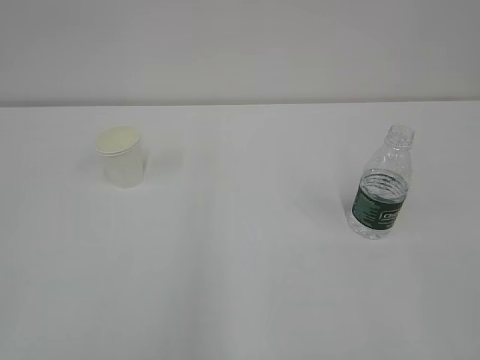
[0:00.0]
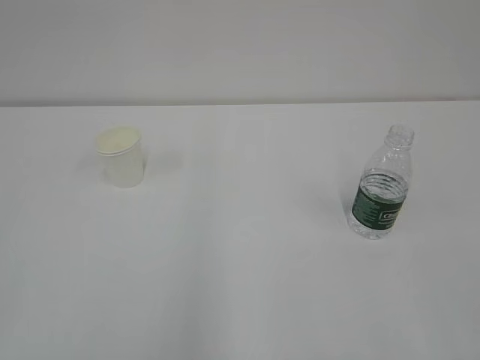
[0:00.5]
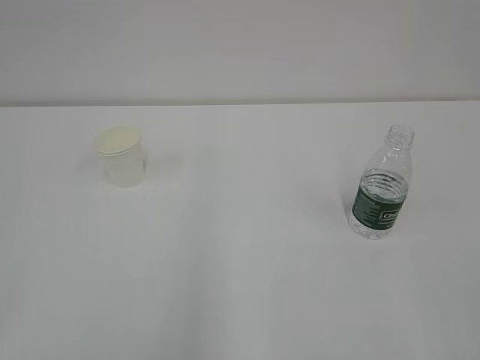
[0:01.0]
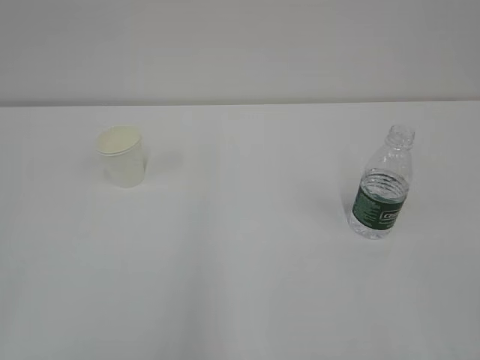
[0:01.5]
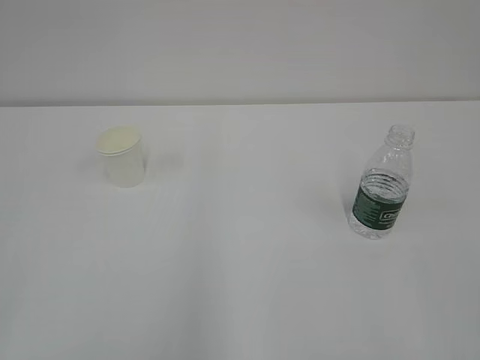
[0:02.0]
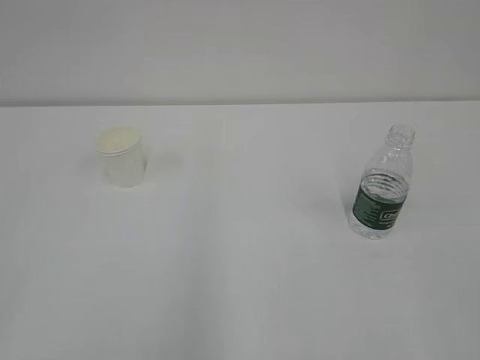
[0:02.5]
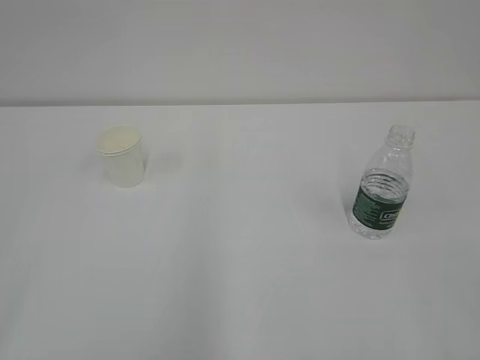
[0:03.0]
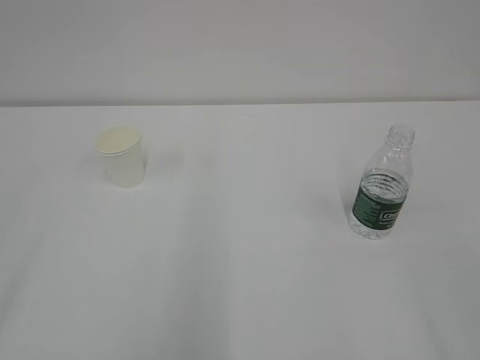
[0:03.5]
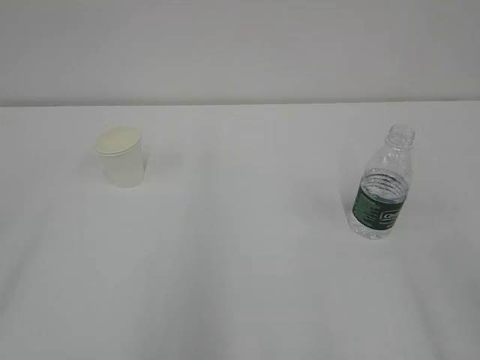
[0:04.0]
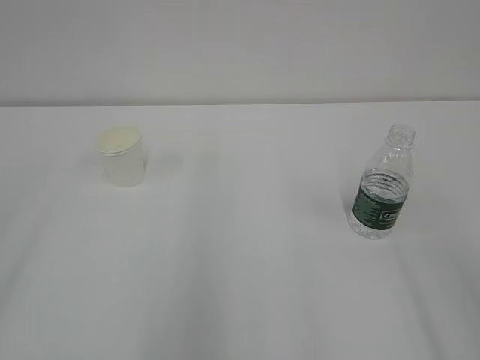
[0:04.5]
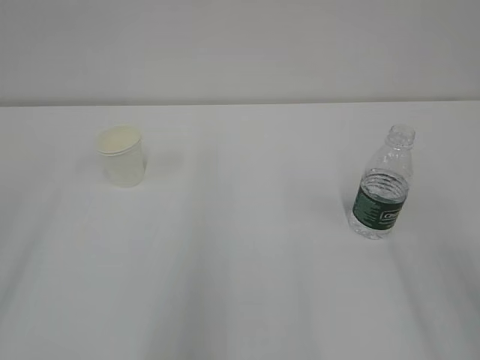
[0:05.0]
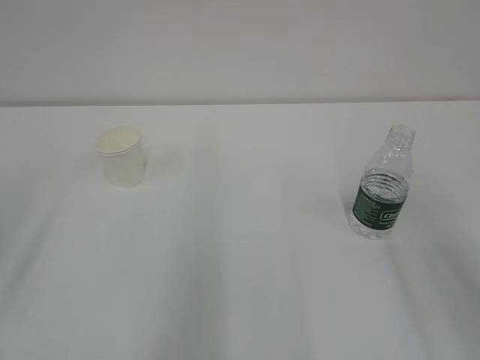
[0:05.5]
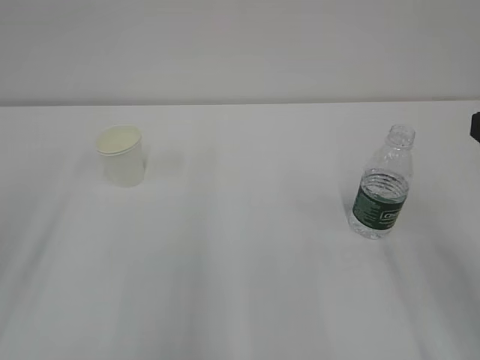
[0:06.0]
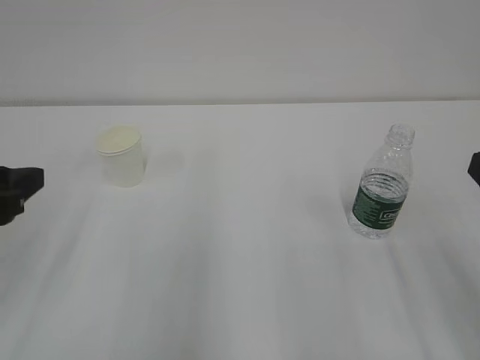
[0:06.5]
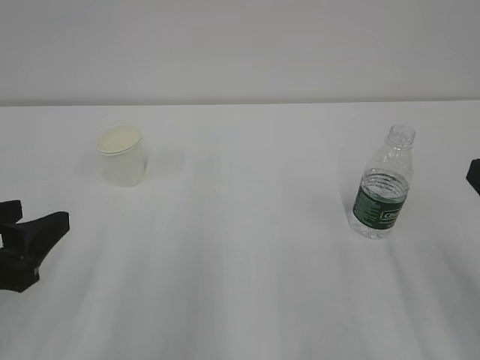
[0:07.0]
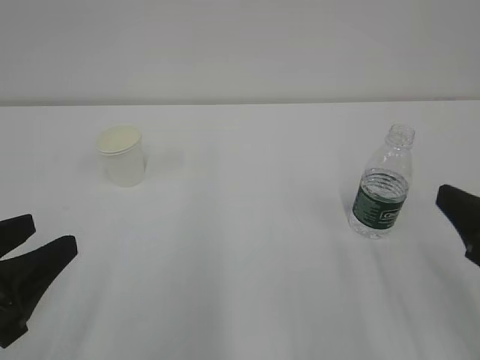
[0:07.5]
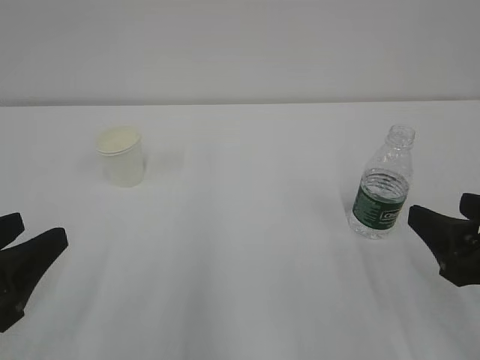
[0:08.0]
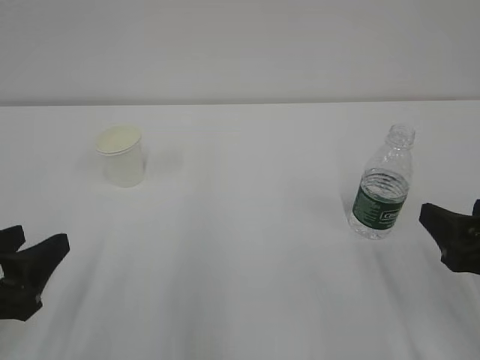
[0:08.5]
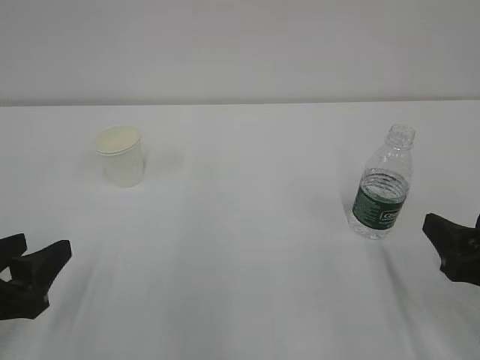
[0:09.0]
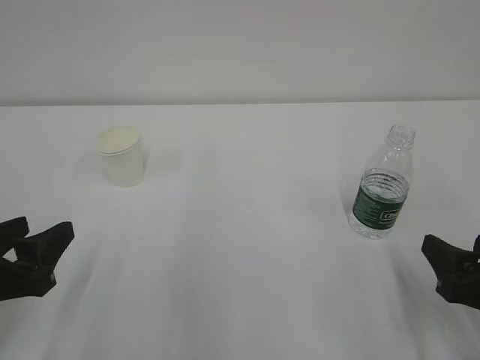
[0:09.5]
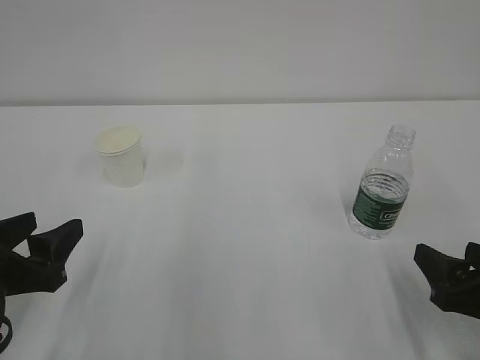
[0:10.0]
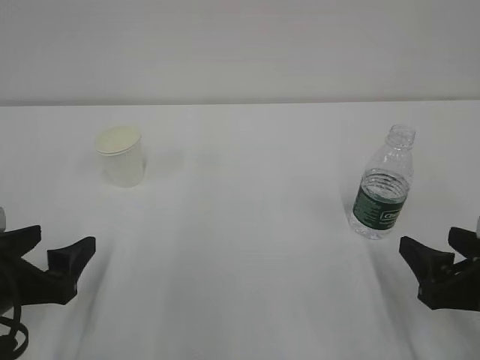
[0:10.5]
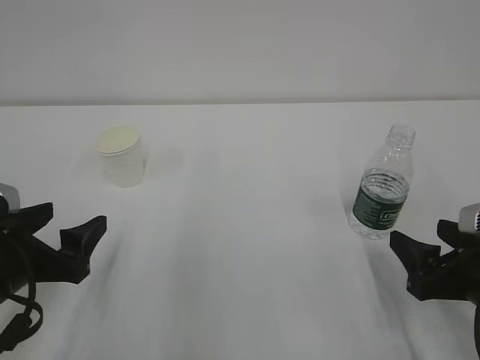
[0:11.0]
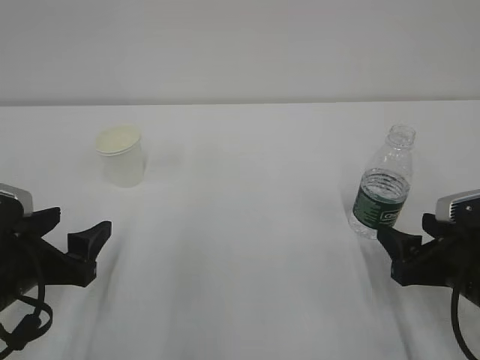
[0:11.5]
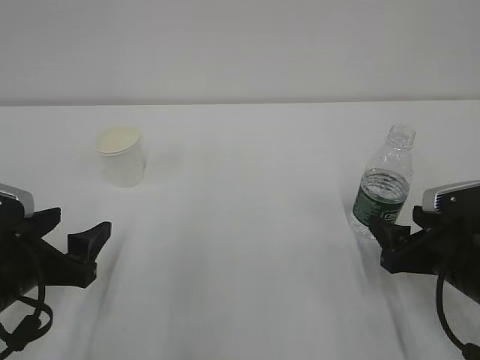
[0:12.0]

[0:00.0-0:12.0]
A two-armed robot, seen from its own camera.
0:06.0 to 0:08.0: The left gripper heads downward and backward, covering some 10 cm. The right gripper heads downward, covering roughly 10 cm.
0:08.0 to 0:10.0: The right gripper goes some 5 cm downward, while the left gripper ends up approximately 5 cm from where it was.
0:10.0 to 0:12.0: The left gripper opens. Meanwhile the right gripper travels forward by approximately 5 cm.

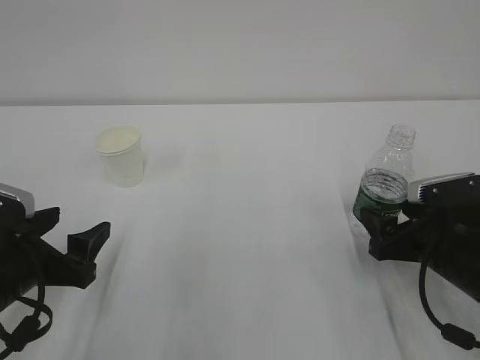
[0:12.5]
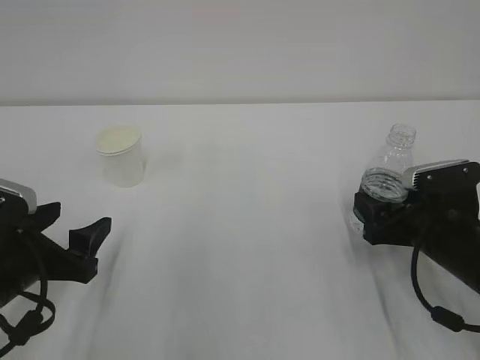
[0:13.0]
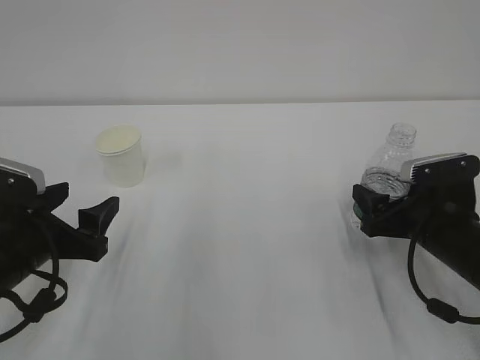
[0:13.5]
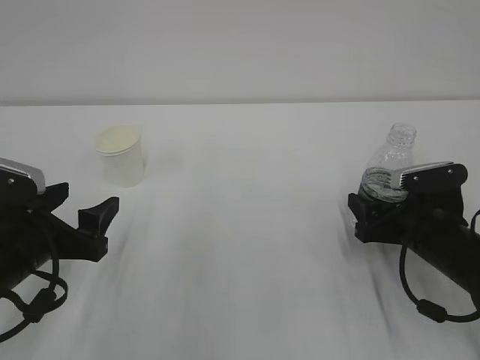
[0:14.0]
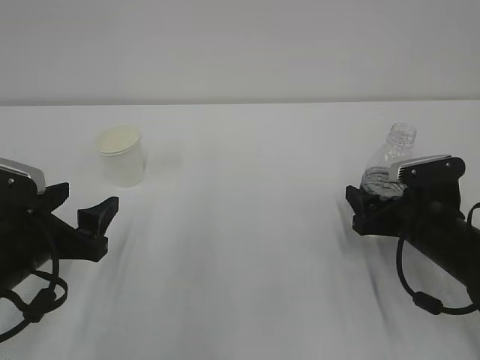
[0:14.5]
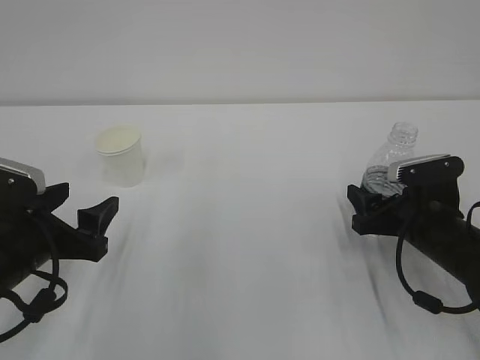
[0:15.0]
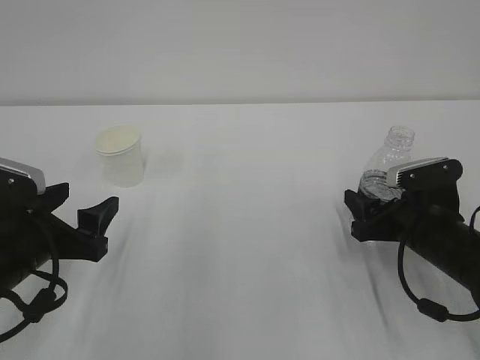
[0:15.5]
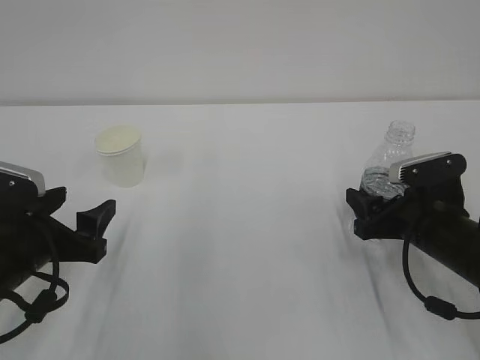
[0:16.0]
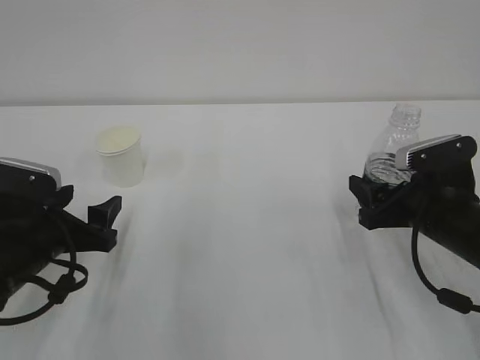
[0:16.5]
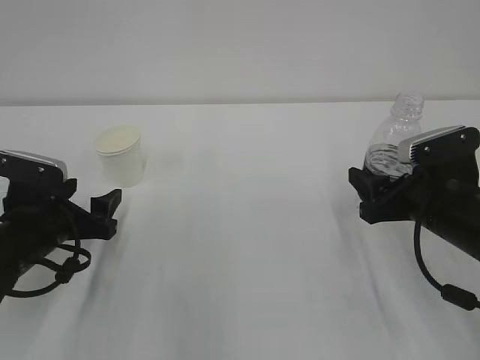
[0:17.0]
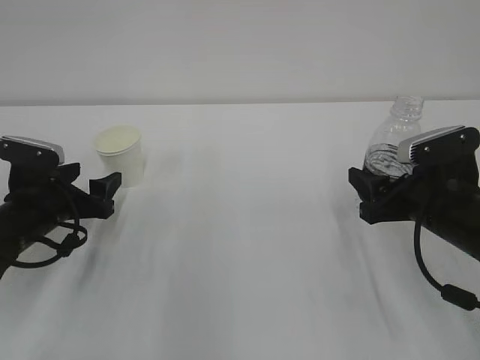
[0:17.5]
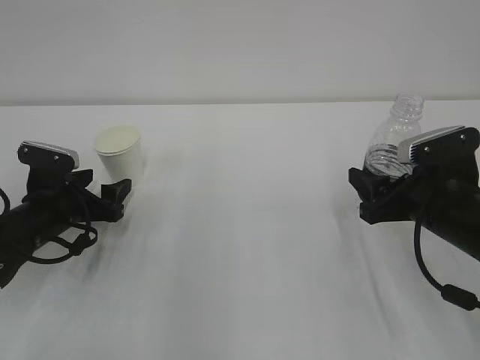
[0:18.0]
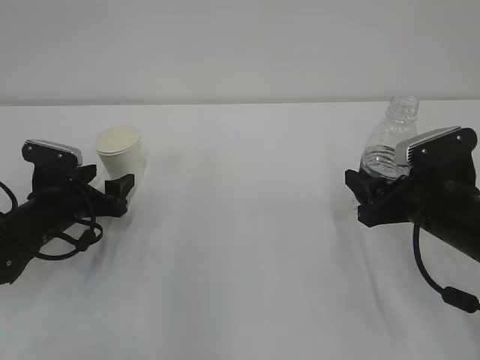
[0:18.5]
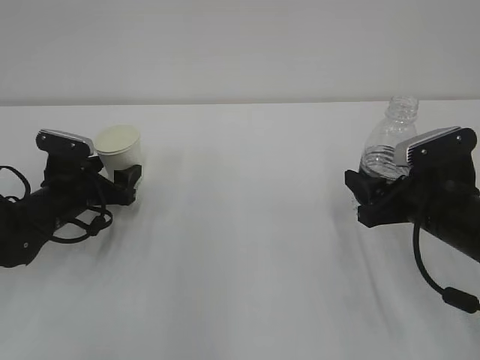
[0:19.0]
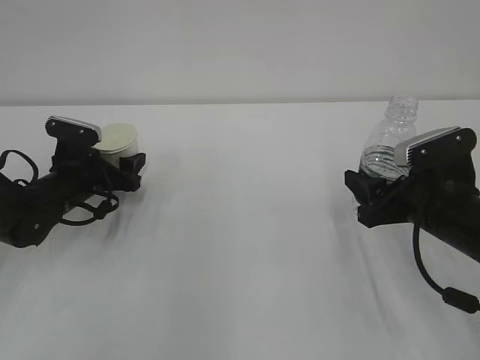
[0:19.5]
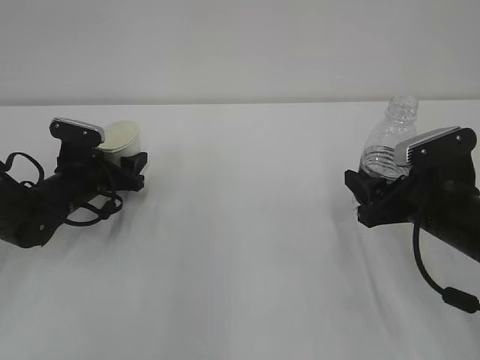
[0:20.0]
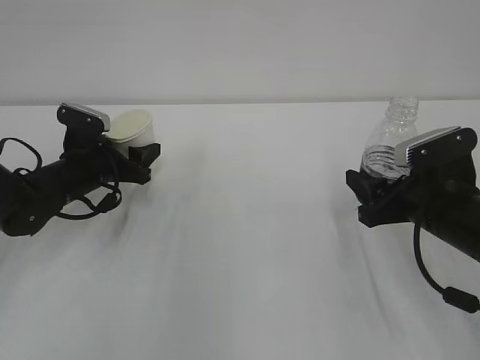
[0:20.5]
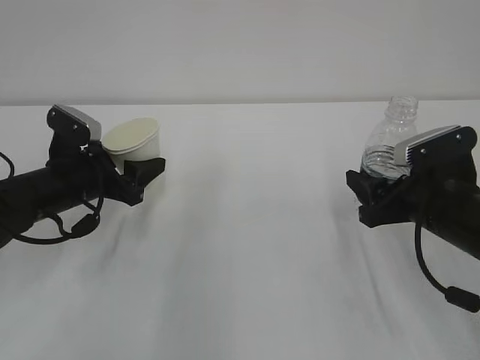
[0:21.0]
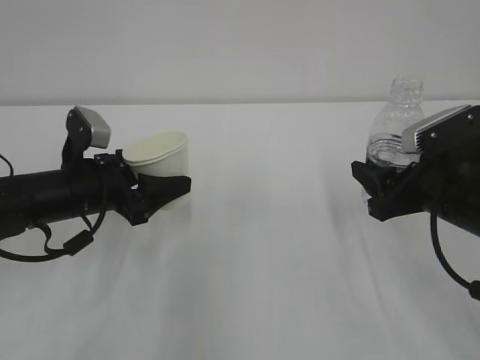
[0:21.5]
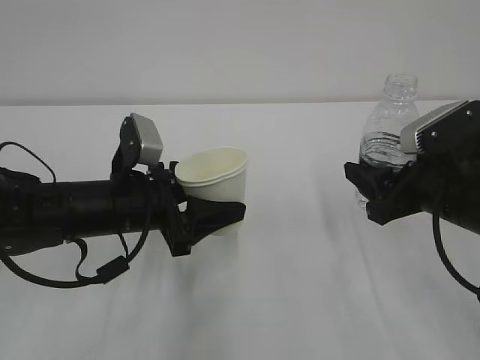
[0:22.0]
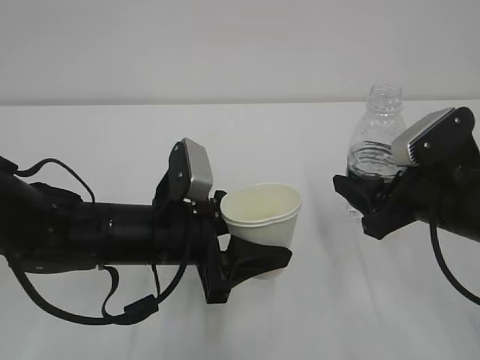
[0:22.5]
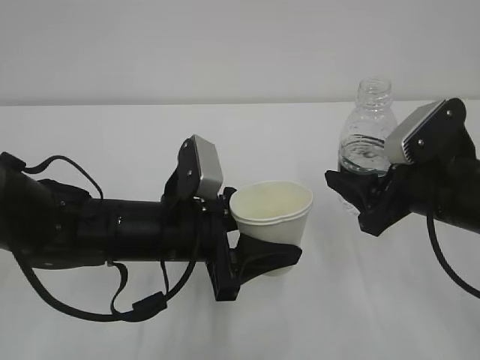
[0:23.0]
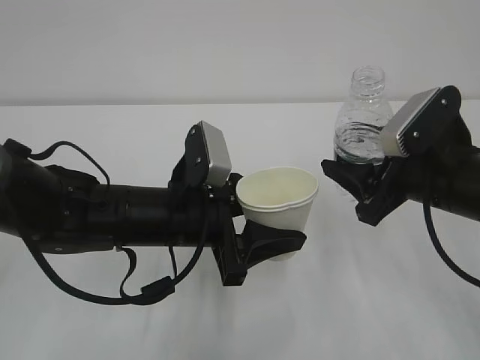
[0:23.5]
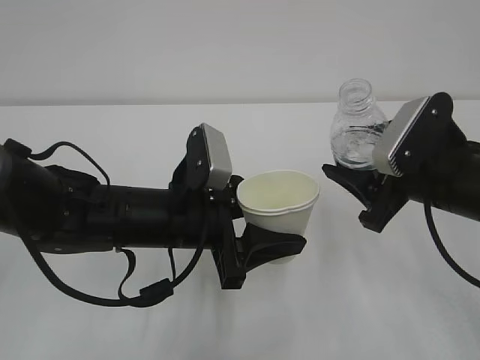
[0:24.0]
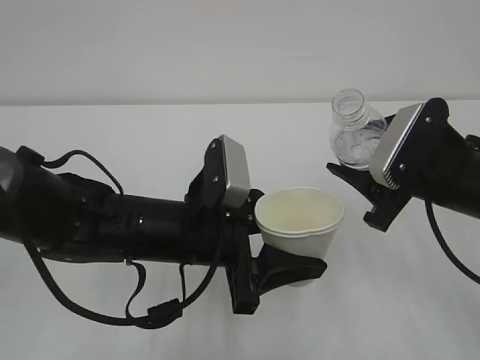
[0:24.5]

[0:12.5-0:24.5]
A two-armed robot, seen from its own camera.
0:12.5 to 0:14.5: The grippers make only small movements.
0:14.5 to 0:16.5: The right gripper closes up.
0:16.5 to 0:18.5: The left gripper moves forward and downward, roughly 10 cm.
0:18.5 to 0:20.5: The left gripper travels forward by roughly 5 cm, and closes.
0:20.5 to 0:22.5: The left gripper shifts roughly 20 cm backward and to the right.

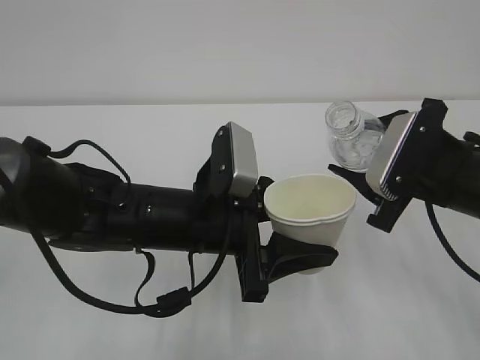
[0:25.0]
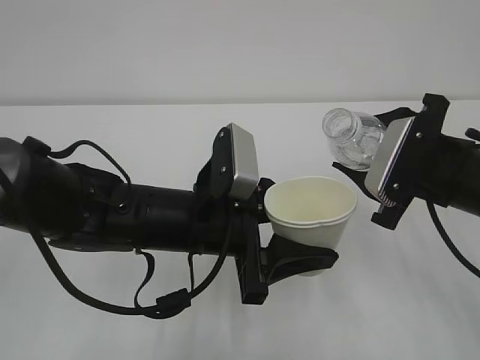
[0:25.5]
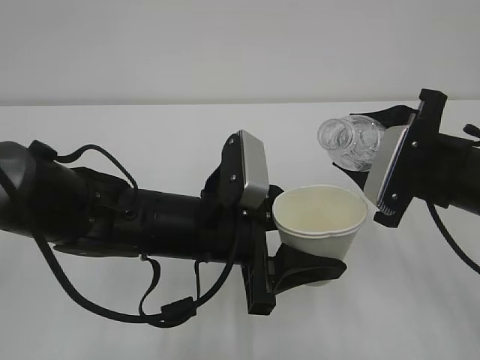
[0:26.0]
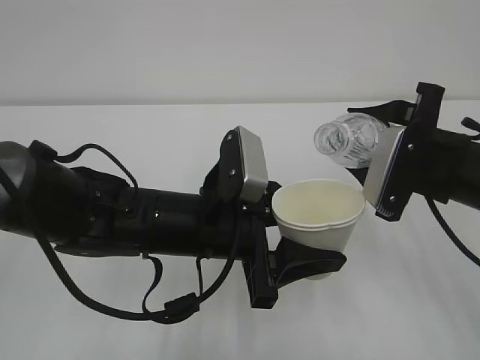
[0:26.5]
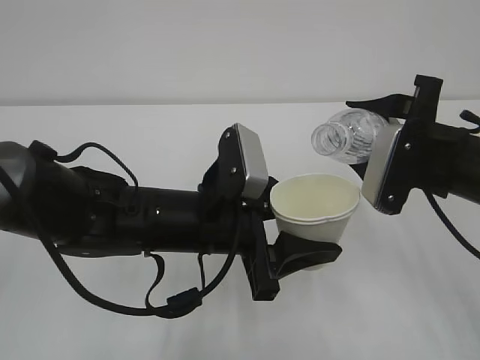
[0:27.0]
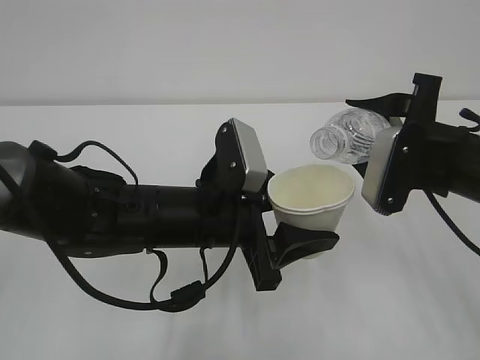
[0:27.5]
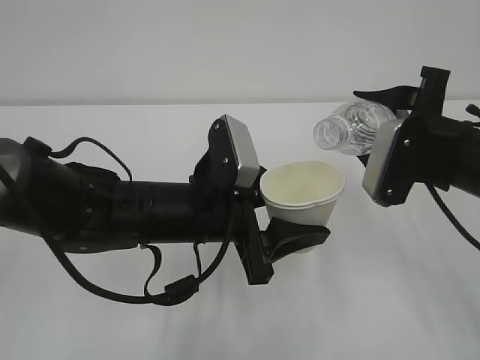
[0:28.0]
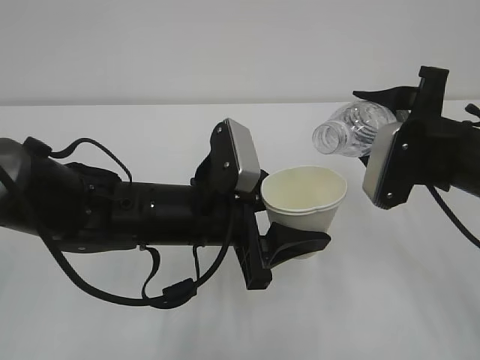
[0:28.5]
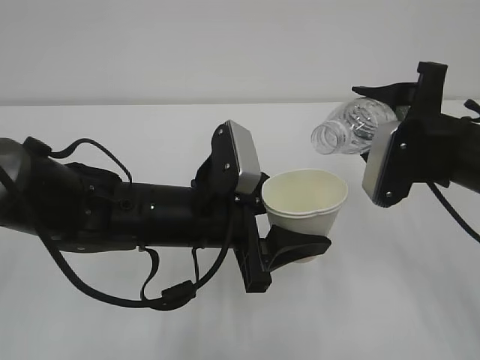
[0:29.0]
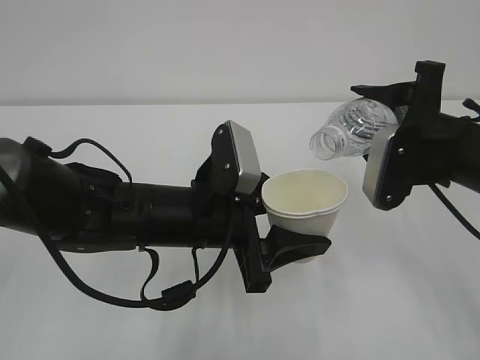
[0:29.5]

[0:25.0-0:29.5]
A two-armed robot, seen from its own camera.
0:27.0 to 0:29.5: The grippers stay close to where they were, moving slightly.
